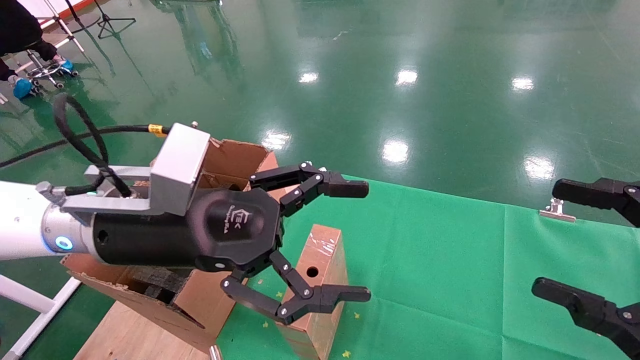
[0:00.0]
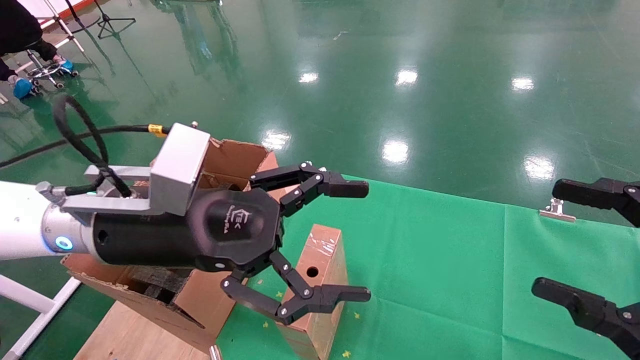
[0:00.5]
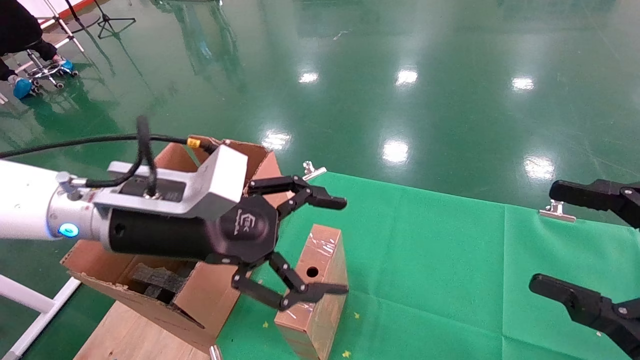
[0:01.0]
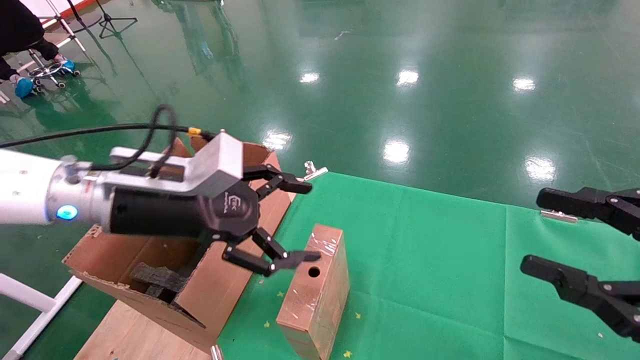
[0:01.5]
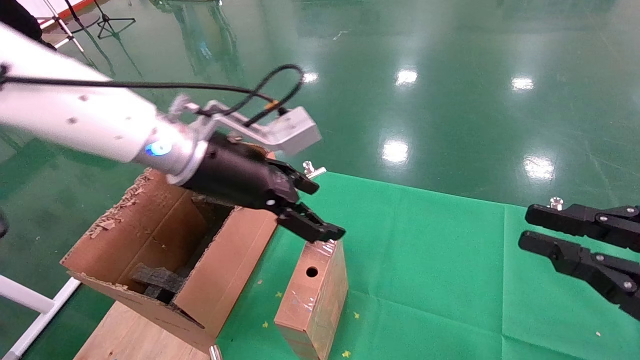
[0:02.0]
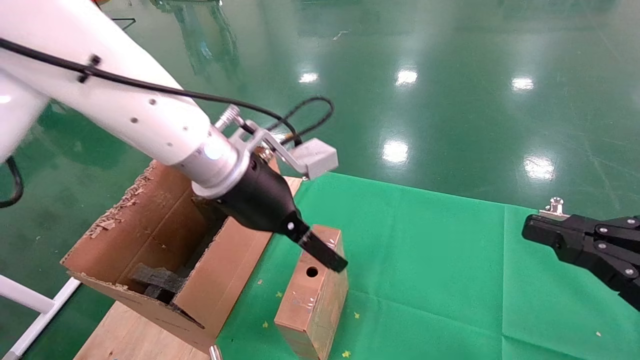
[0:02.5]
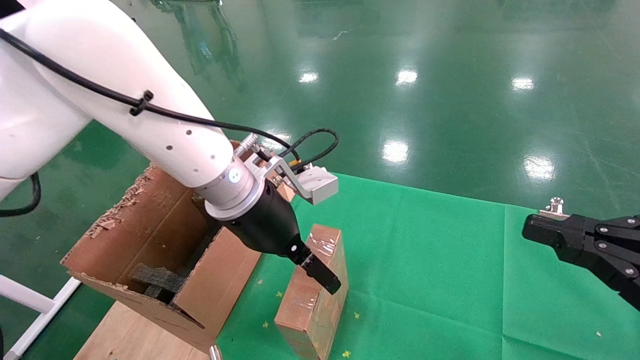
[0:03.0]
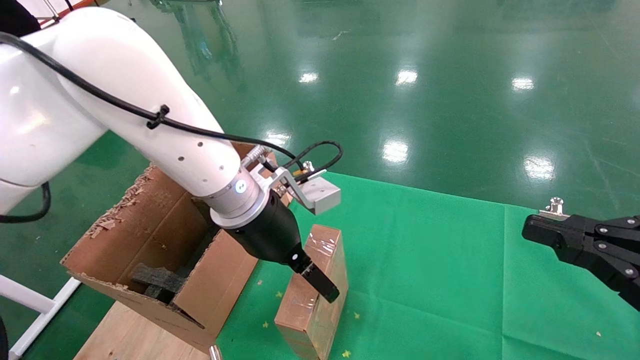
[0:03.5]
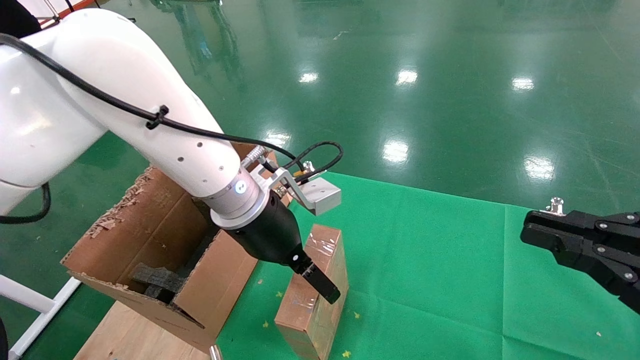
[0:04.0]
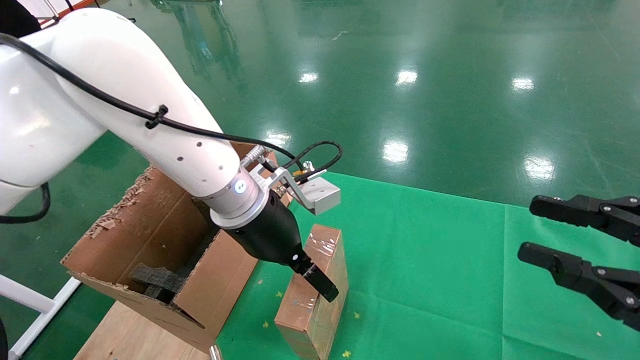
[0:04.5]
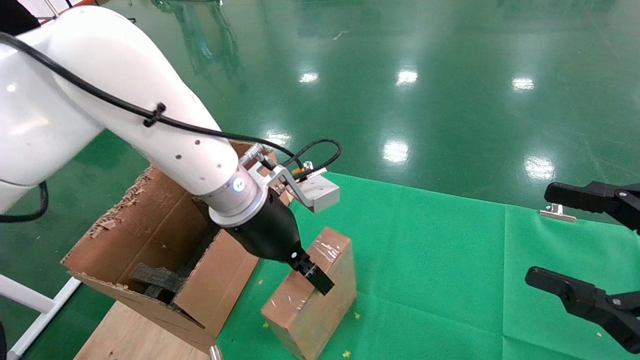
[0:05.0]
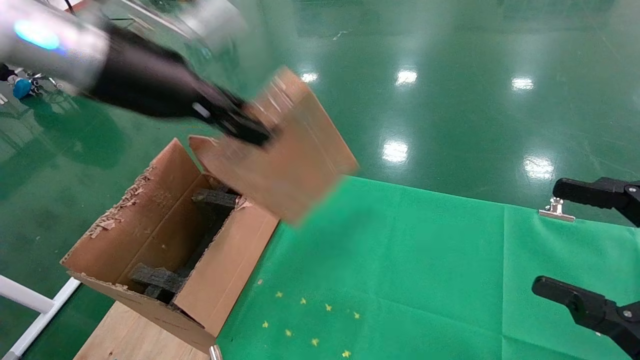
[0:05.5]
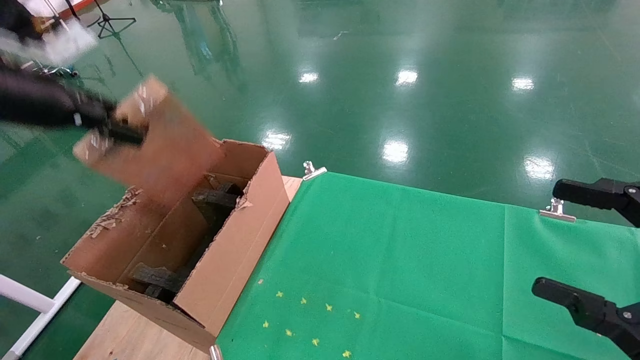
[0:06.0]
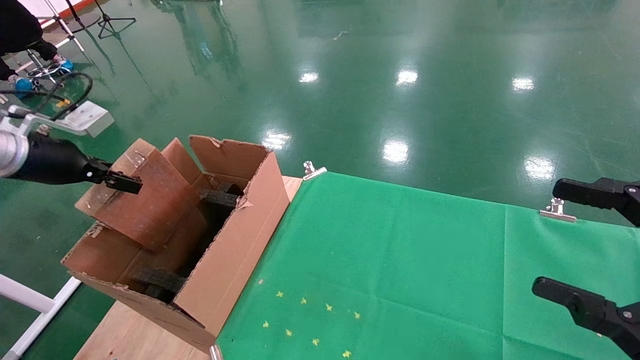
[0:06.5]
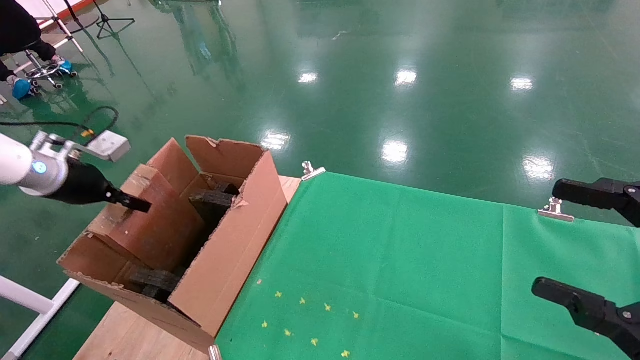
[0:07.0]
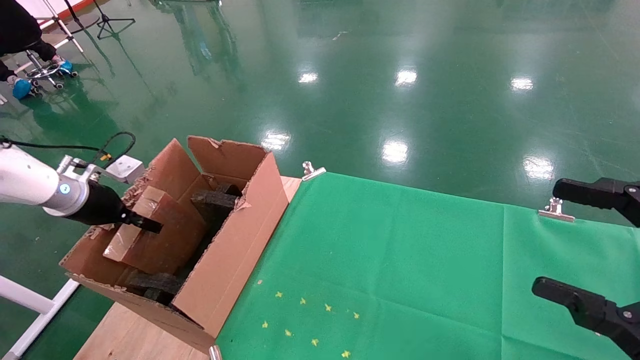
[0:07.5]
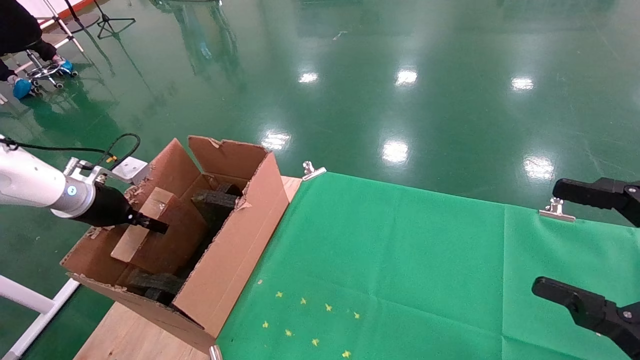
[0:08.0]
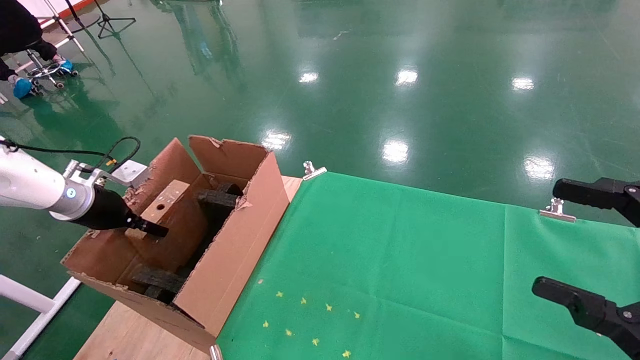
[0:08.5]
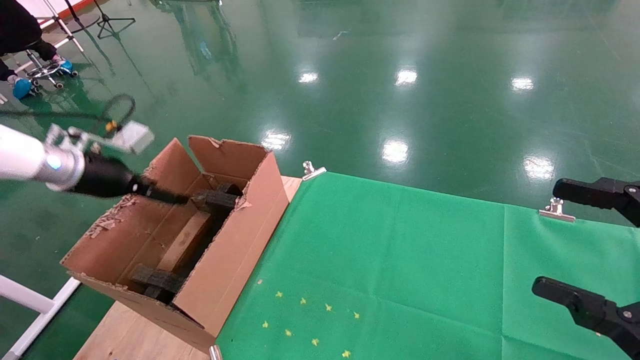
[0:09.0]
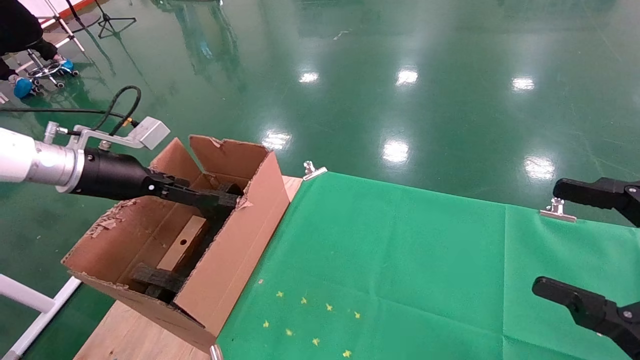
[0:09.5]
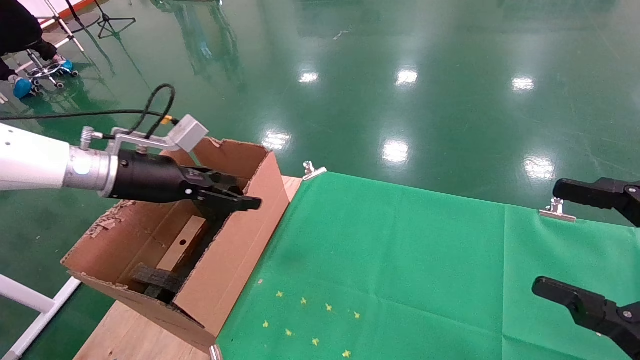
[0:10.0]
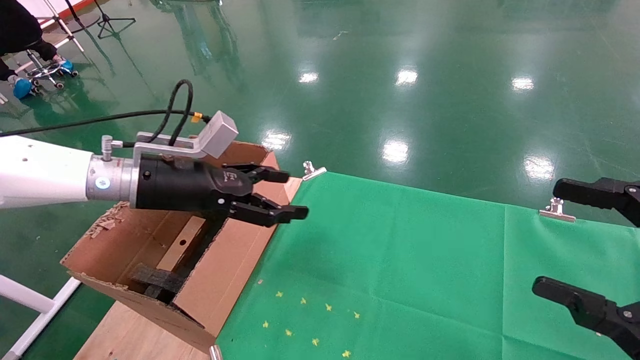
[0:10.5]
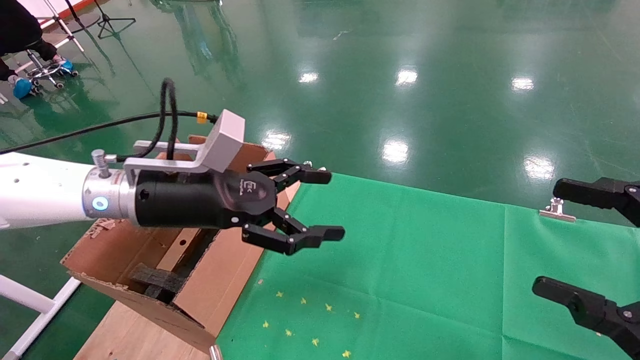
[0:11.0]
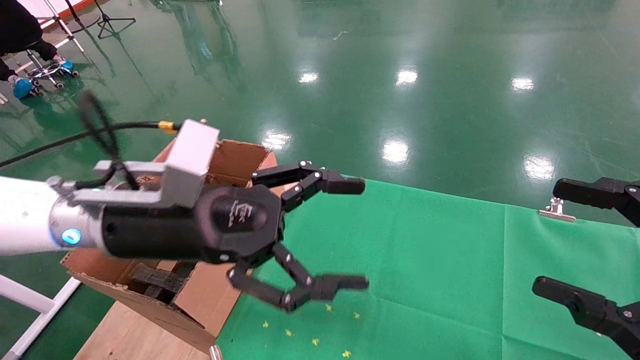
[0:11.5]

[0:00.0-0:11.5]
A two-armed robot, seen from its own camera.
Task of the whole recording: using a robotic arm to pick up a cardboard box and palace it the carton.
Step, 0:01.0 to 0:05.0: Pick up the mouse and the power cord paper box.
Step, 0:05.5 to 0:08.0: Place the mouse and the power cord paper box into the container.
0:00.0 to 0:02.0: The right gripper closes its fingers, while the left gripper goes approximately 10 cm forward.
0:02.0 to 0:04.0: The left gripper is displaced to the right by about 5 cm.
0:04.0 to 0:06.0: The left gripper shifts about 30 cm to the left and upward, and closes up; the right gripper opens up.
0:06.0 to 0:07.5: The left gripper shifts approximately 20 cm downward, forward and to the left.
0:07.5 to 0:09.5: The left gripper goes some 10 cm to the right and upward, and opens up.
0:09.5 to 0:11.5: The left gripper is displaced to the right and backward by roughly 25 cm.

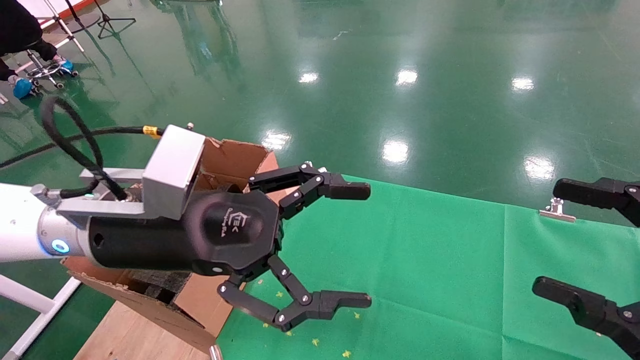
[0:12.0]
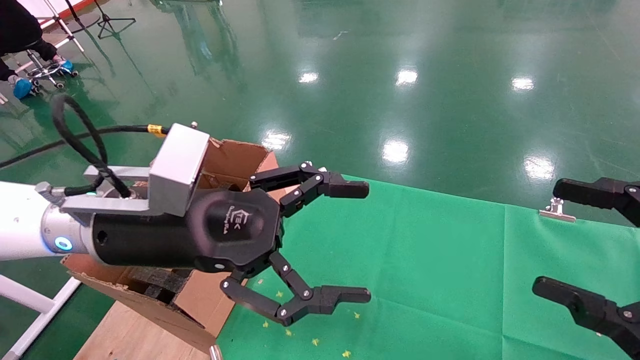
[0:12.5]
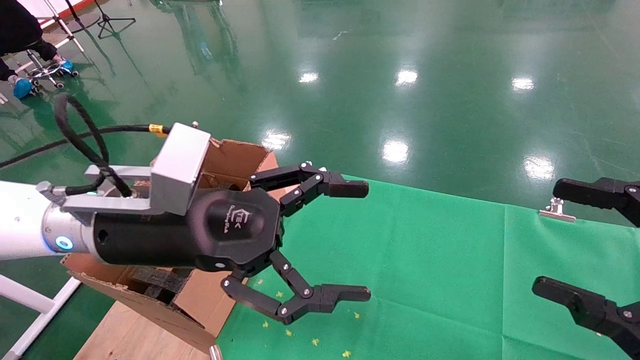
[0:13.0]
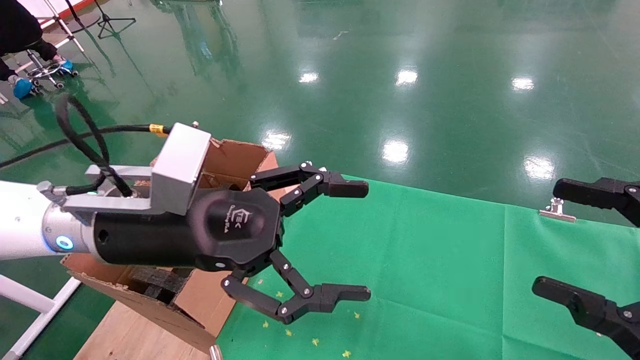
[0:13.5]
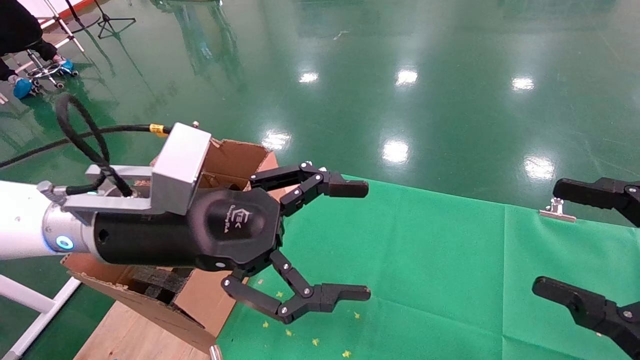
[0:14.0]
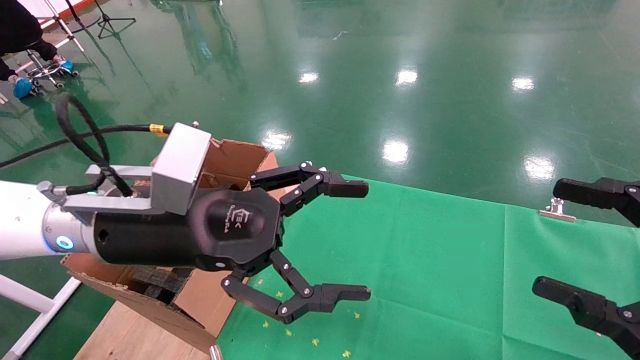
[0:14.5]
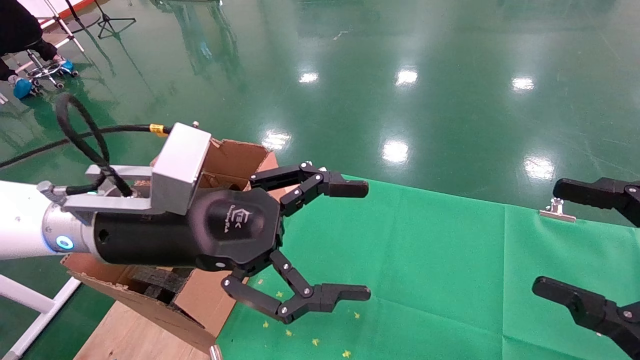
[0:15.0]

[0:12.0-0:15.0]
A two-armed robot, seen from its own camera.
Task of the whole recording: using a robotic arm to pick up a cardboard box and palace it the carton.
0:12.0 to 0:15.0: Neither gripper changes place.

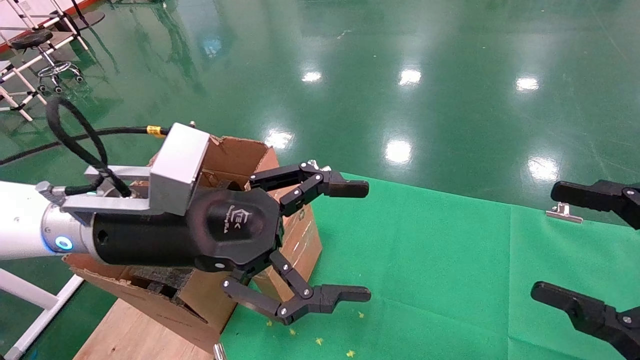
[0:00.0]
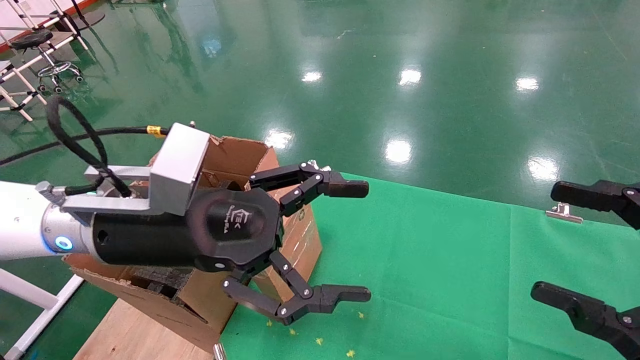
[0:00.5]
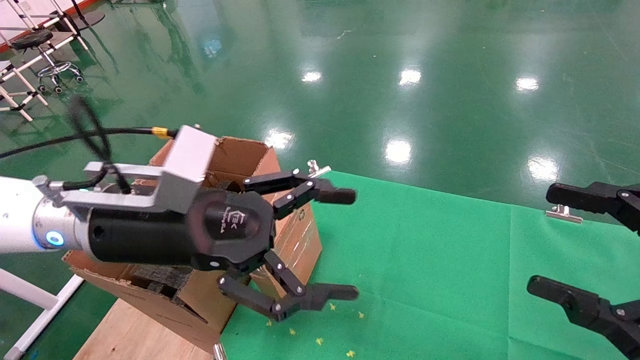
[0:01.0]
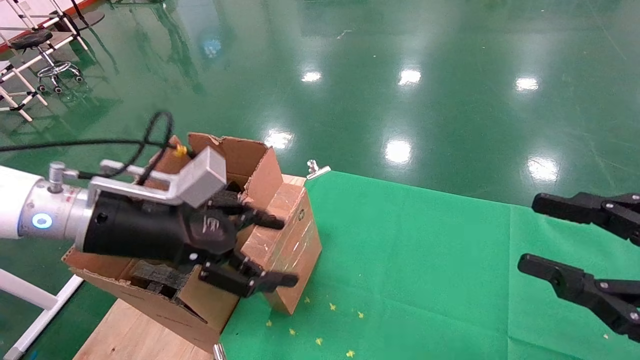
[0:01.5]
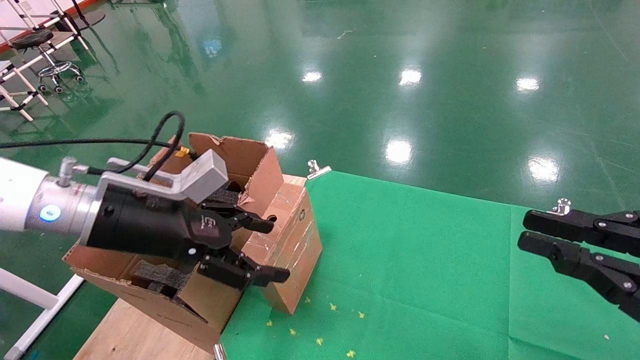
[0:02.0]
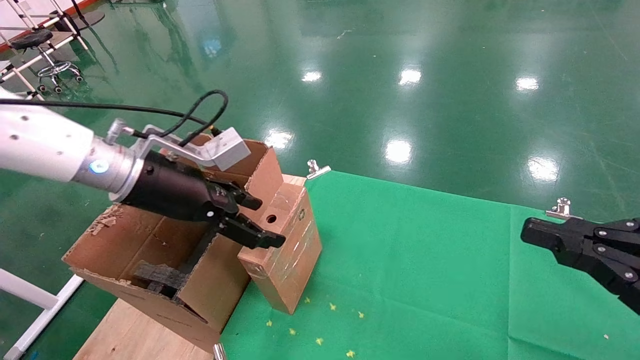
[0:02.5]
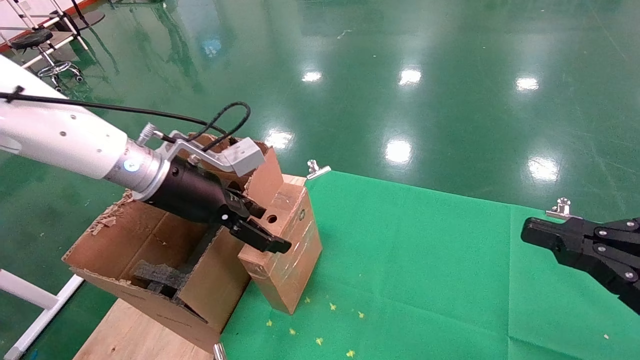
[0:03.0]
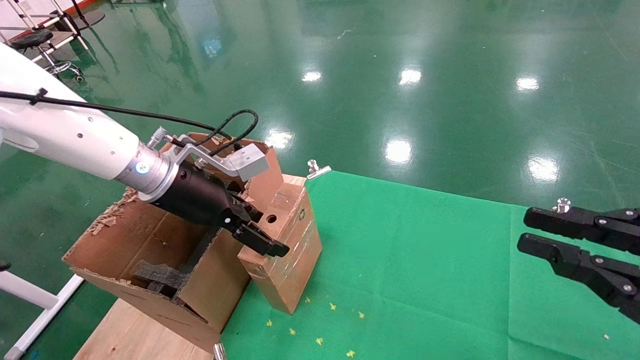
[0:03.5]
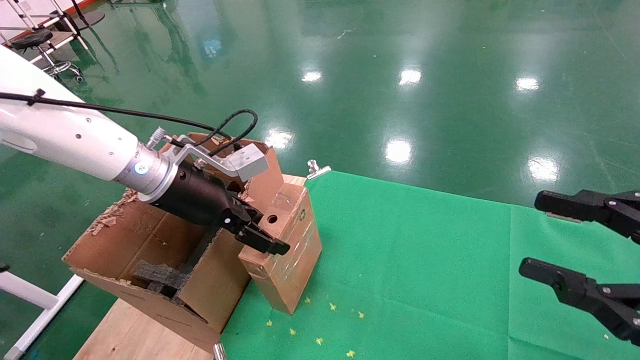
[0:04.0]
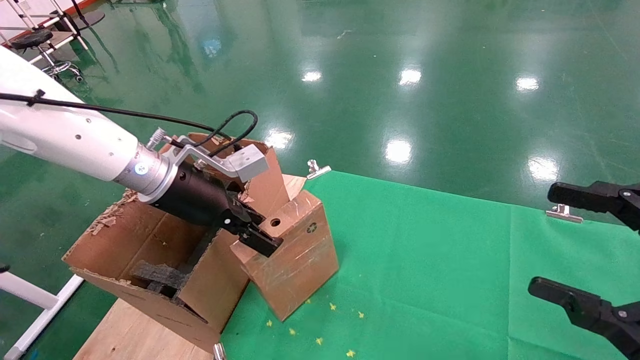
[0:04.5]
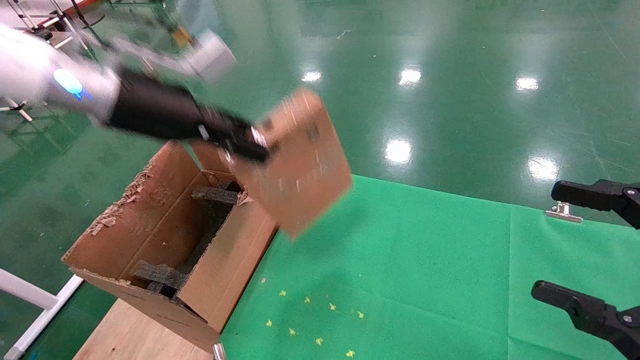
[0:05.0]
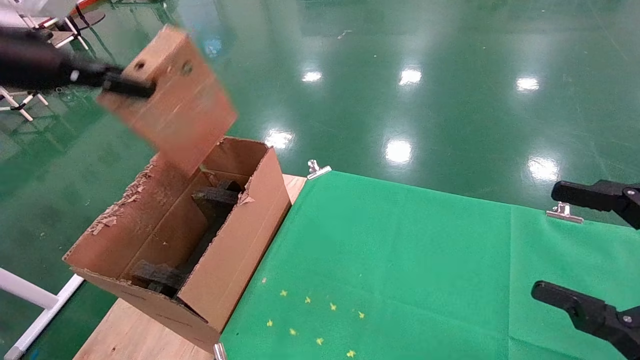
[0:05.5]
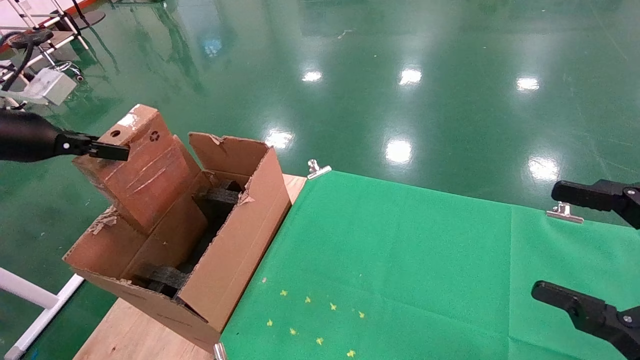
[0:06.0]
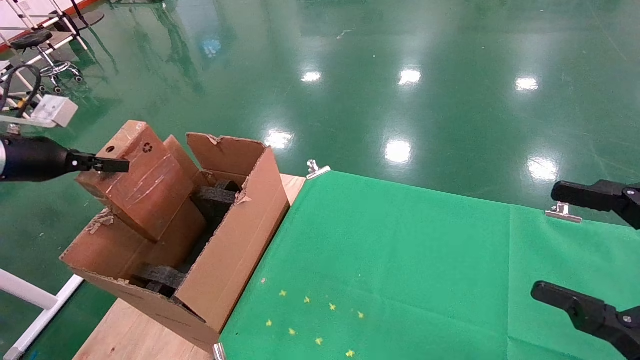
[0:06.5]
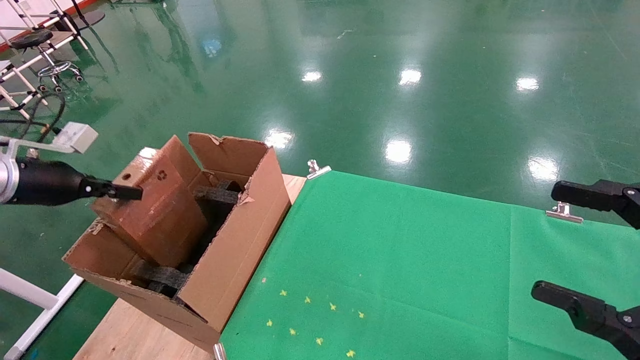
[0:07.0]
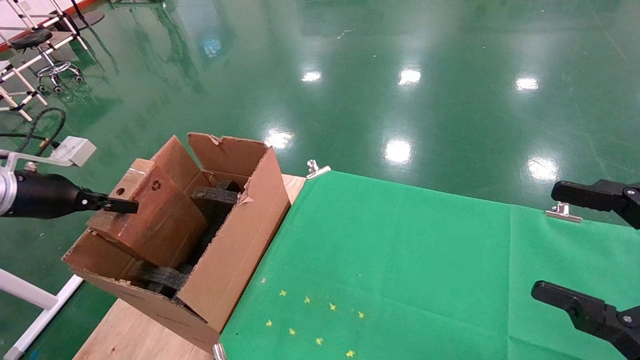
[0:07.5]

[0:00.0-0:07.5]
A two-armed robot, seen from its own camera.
Task of the whole recording: using a robotic arm to pick up a cardboard box and palace it the carton.
Step, 0:01.5 to 0:04.5: Pick up the mouse and the power cord paper box.
0:00.0 to 0:02.0: The right gripper closes up; the left gripper travels to the left by approximately 5 cm.
0:02.0 to 0:04.0: The left gripper shifts approximately 10 cm forward.
0:04.0 to 0:05.5: The left gripper goes roughly 20 cm to the left and upward, and closes up; the right gripper opens up.
0:05.5 to 0:07.5: The left gripper is displaced downward and to the left by approximately 20 cm.
